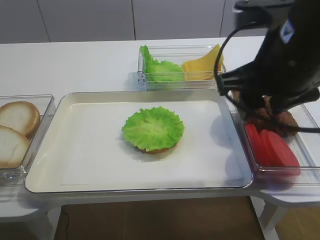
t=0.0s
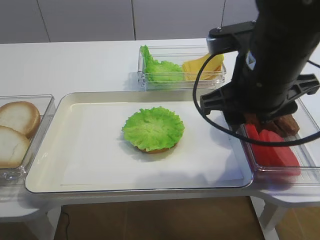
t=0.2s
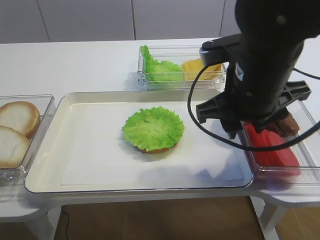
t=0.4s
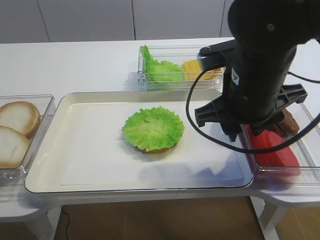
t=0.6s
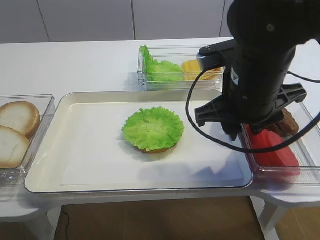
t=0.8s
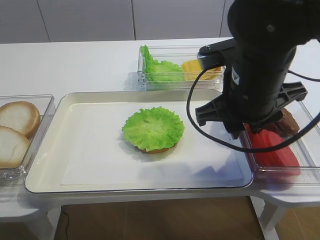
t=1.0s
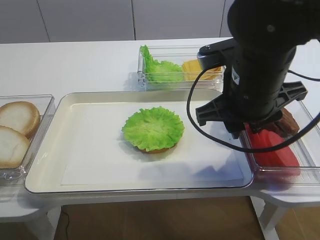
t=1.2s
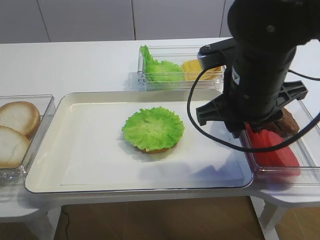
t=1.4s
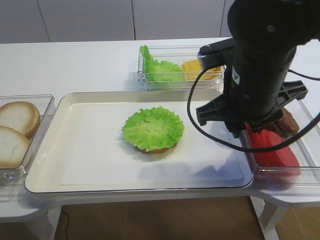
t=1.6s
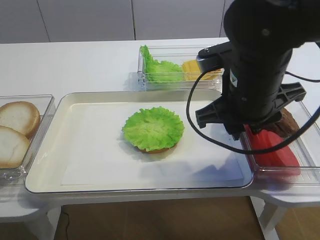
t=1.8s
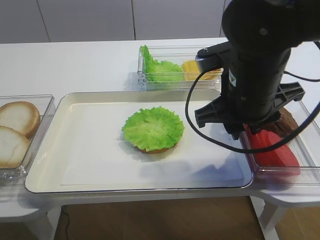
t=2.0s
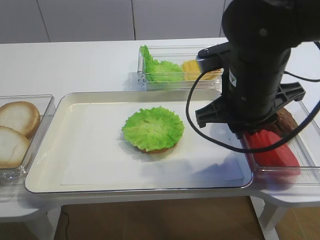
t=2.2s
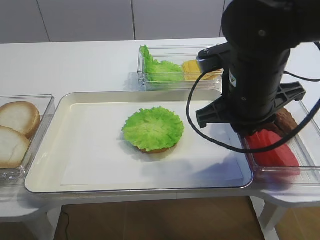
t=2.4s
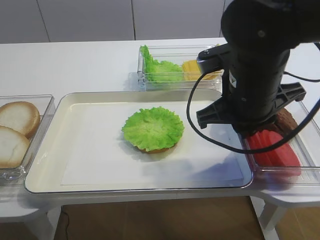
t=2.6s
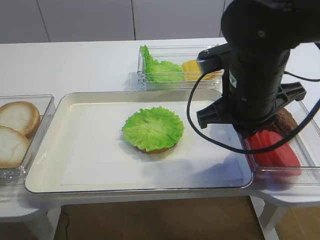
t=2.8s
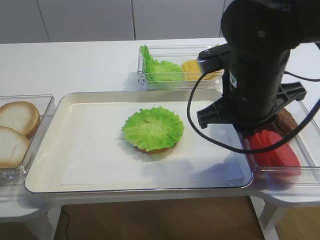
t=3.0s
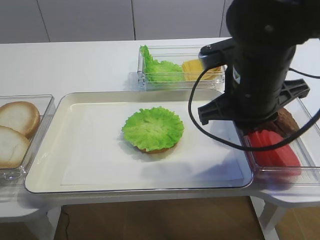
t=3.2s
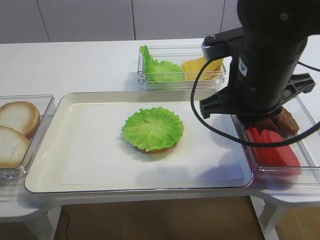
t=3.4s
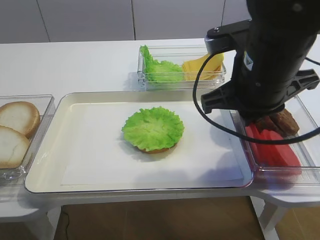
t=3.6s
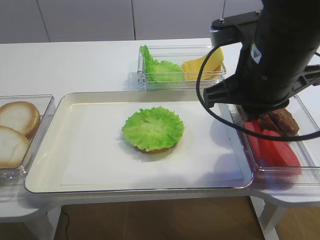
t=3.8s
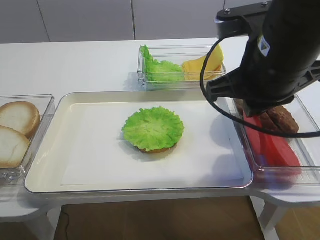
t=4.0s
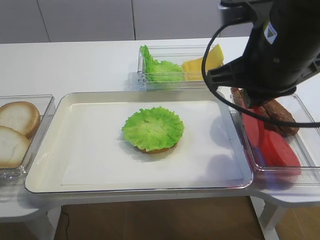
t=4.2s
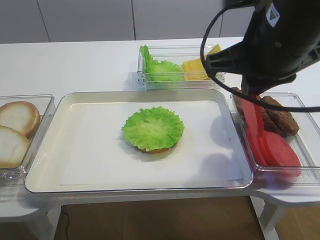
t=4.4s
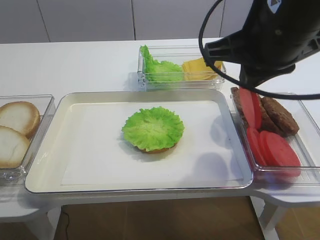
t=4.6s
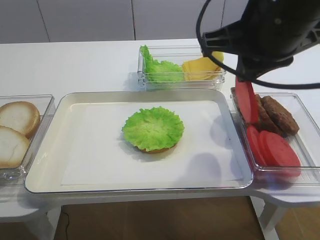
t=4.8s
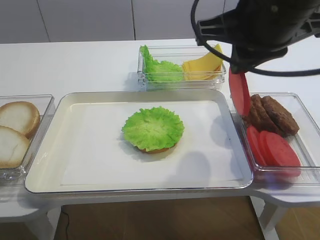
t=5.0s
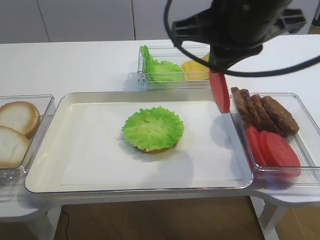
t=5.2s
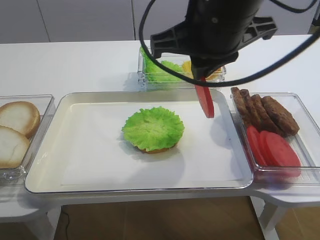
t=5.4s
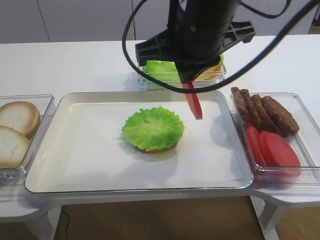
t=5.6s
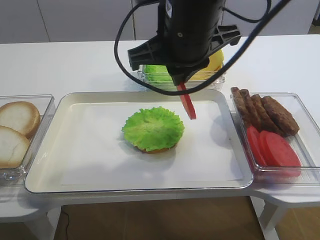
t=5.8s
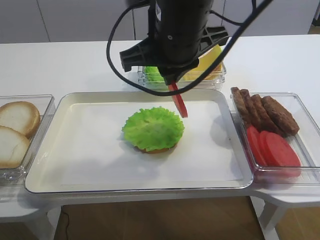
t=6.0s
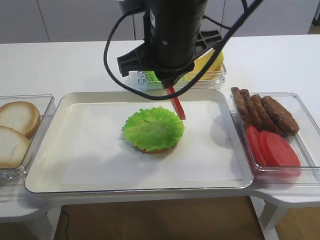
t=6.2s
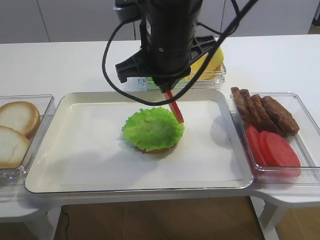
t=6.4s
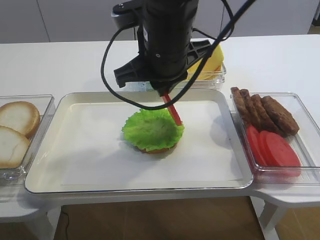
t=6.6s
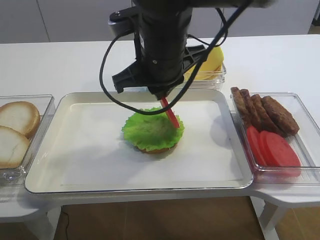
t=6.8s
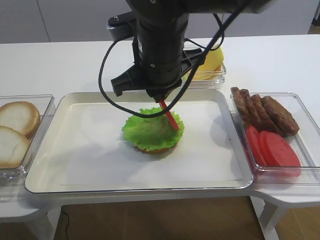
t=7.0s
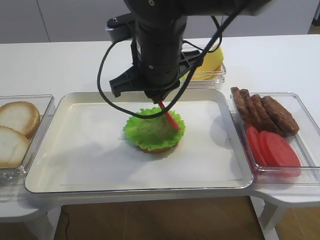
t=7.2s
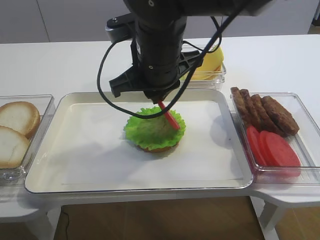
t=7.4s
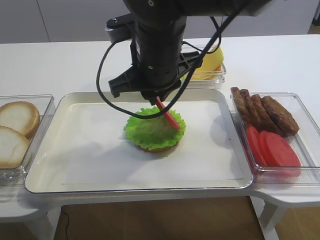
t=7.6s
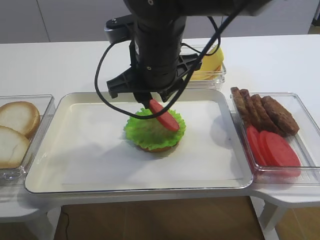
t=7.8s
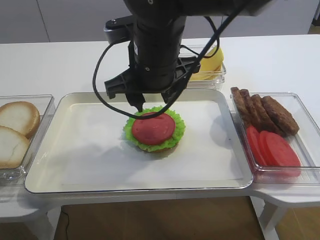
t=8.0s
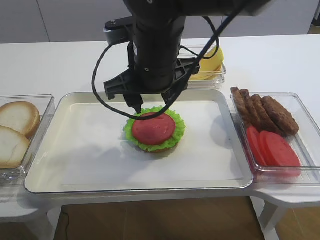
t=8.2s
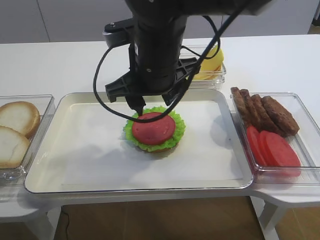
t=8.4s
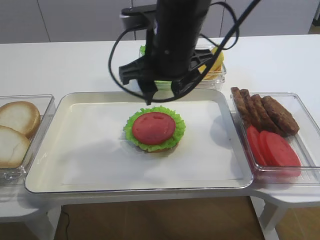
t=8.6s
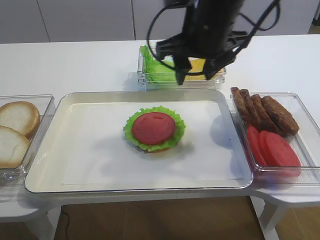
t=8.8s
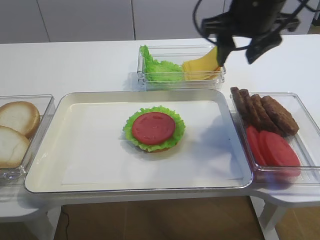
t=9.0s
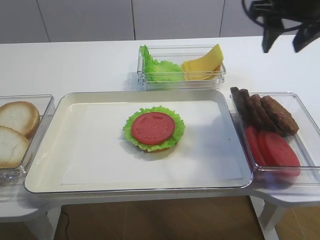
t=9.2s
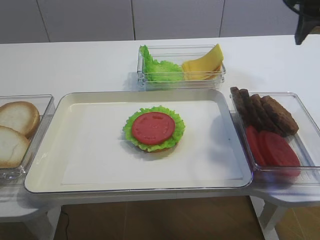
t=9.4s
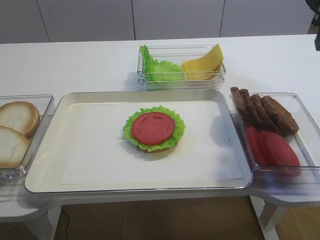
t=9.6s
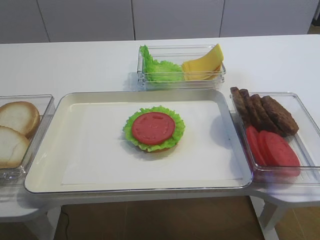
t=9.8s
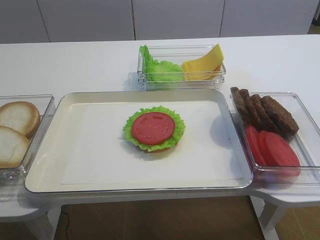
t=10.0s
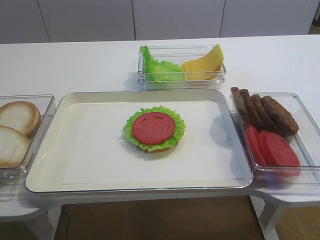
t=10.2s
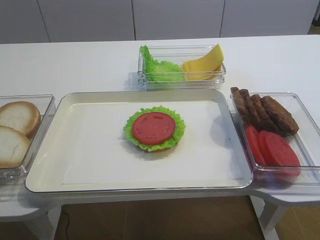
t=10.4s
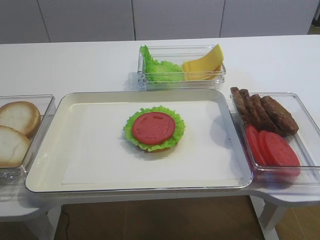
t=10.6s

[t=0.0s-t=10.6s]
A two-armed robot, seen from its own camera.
Step, t=0.0s to t=4.2s: Pick up the tomato slice with the right gripper.
Step, t=4.4s to t=8.2s: Place the tomato slice on the lettuce leaf with the right gripper.
t=0.0s to t=1.6s: The right gripper moves downward, some 5 cm.
t=1.6s to t=3.0s: The right gripper closes.
t=3.0s to t=4.6s: The right gripper moves upward, some 10 cm.
t=4.6s to t=6.0s: The right gripper heads to the left, covering some 10 cm.
t=6.0s to t=7.6s: The right gripper ends up about 5 cm from where it was.
t=7.6s to t=9.0s: The right gripper goes roughly 15 cm to the right, and opens its fingers.
t=9.0s to t=10.6s: The right gripper moves backward and to the right, about 35 cm.

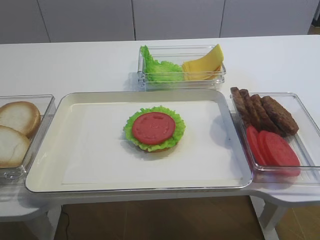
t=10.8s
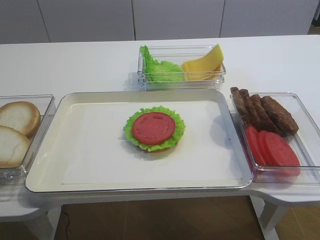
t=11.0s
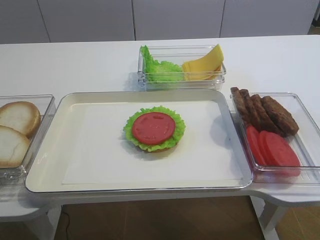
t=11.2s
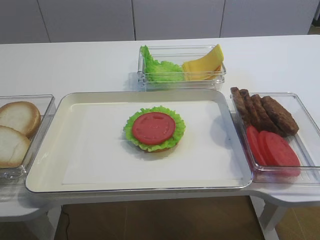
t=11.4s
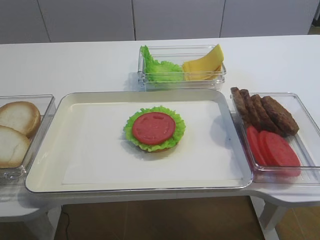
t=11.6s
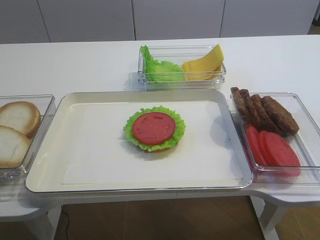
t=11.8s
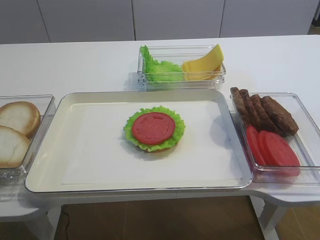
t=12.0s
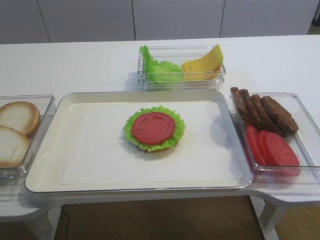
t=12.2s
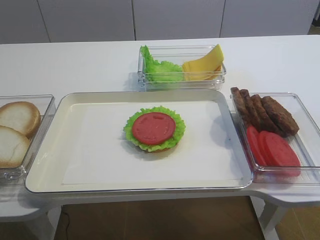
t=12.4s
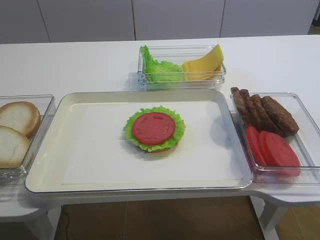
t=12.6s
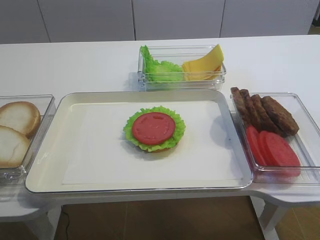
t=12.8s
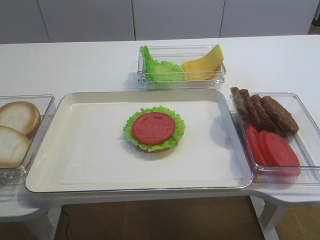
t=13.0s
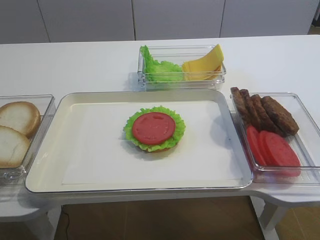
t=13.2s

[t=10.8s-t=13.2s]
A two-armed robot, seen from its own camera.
t=12.0s to t=13.2s: Both grippers stay put.

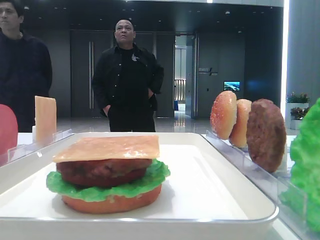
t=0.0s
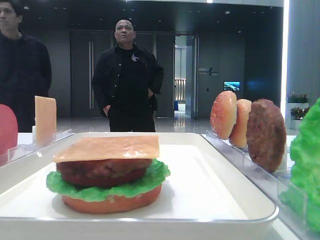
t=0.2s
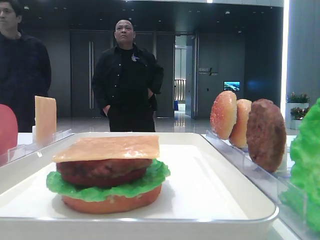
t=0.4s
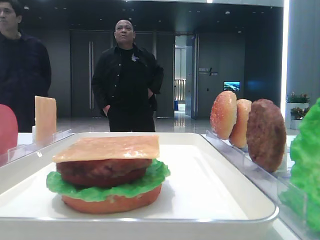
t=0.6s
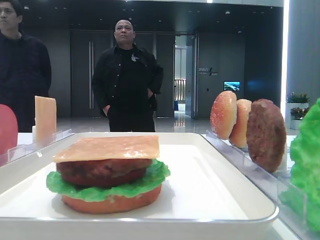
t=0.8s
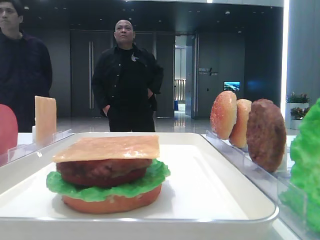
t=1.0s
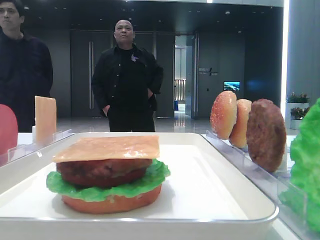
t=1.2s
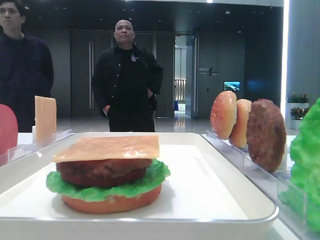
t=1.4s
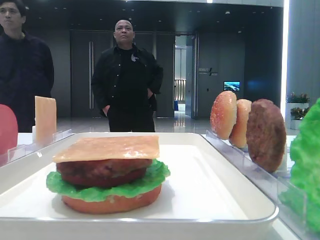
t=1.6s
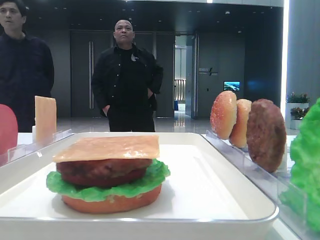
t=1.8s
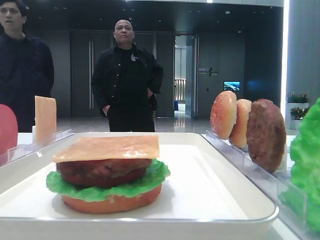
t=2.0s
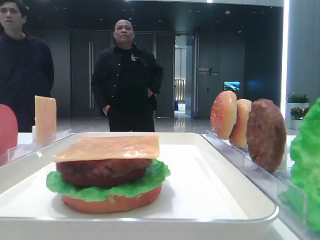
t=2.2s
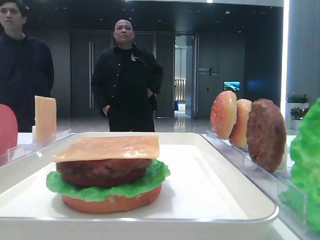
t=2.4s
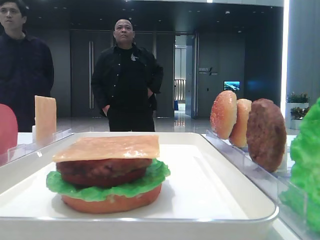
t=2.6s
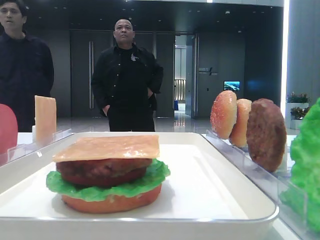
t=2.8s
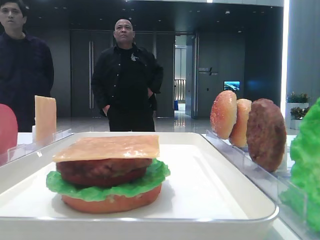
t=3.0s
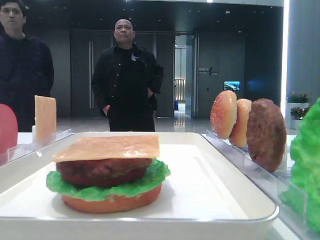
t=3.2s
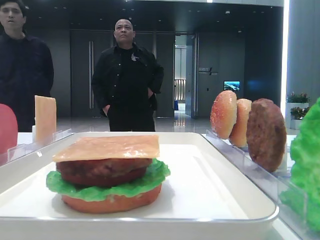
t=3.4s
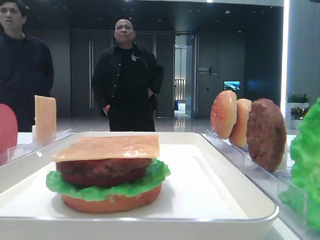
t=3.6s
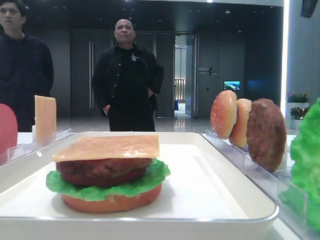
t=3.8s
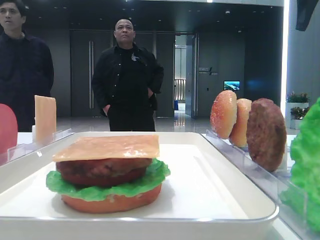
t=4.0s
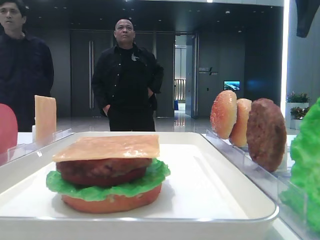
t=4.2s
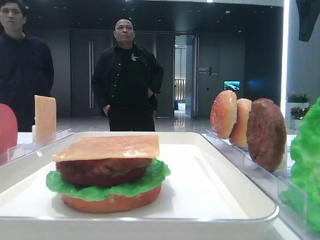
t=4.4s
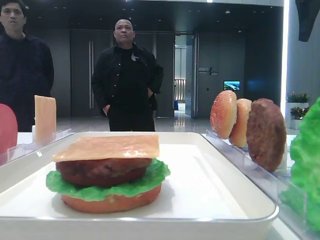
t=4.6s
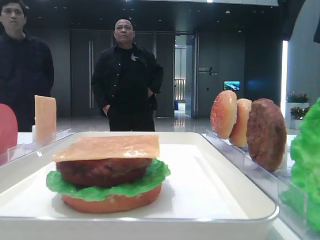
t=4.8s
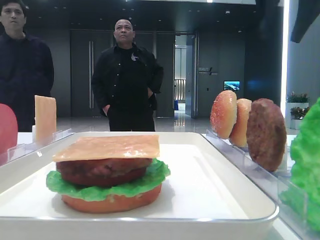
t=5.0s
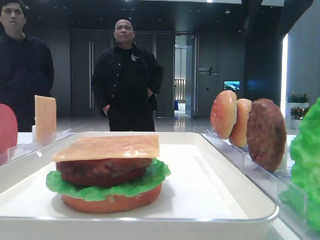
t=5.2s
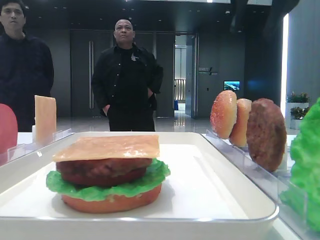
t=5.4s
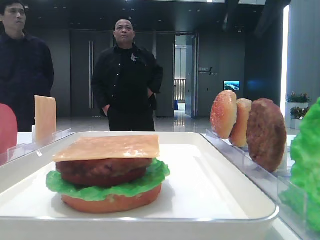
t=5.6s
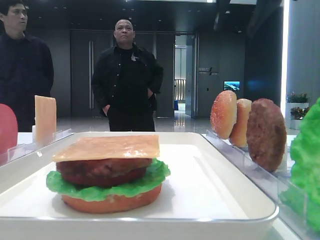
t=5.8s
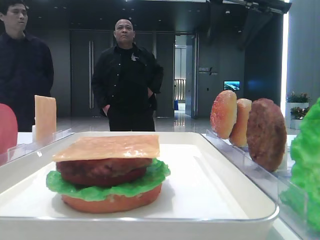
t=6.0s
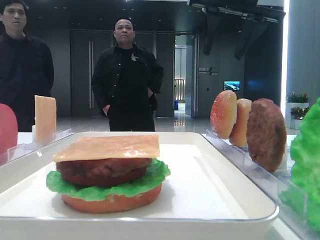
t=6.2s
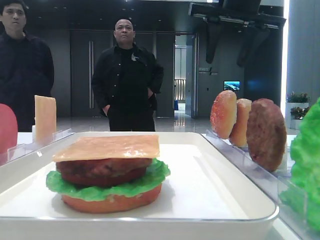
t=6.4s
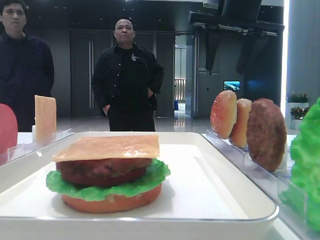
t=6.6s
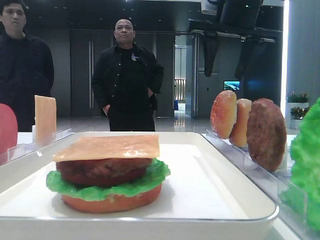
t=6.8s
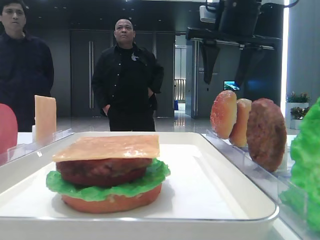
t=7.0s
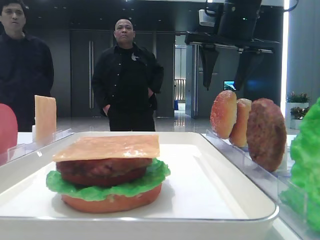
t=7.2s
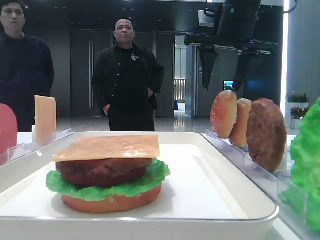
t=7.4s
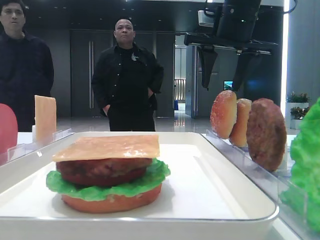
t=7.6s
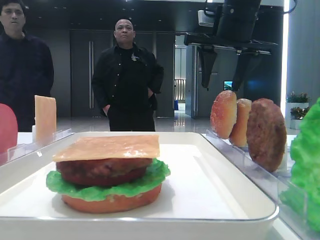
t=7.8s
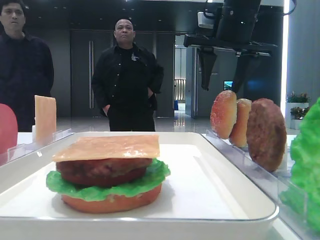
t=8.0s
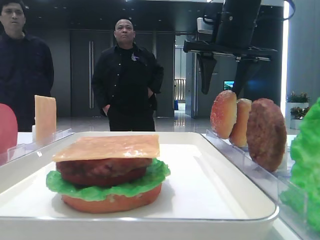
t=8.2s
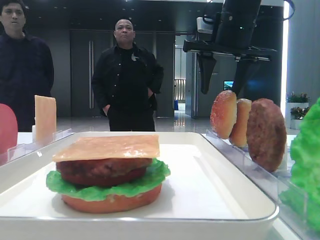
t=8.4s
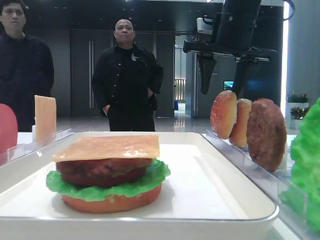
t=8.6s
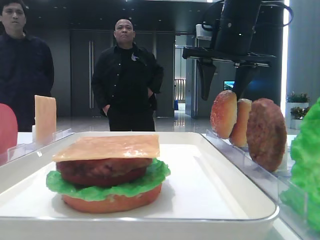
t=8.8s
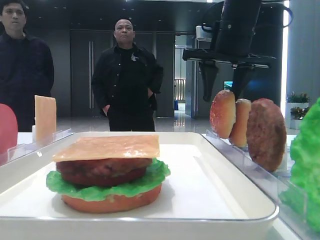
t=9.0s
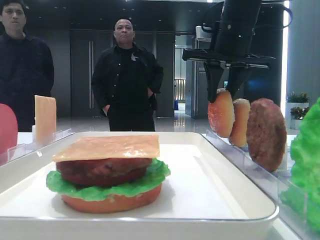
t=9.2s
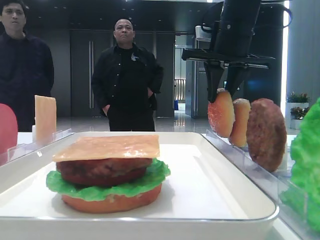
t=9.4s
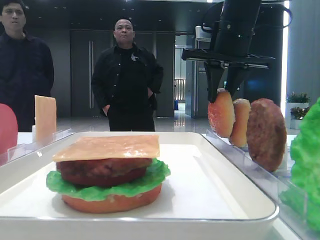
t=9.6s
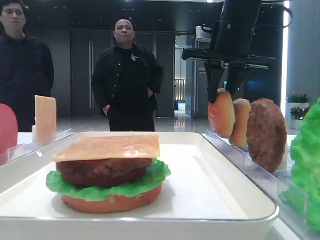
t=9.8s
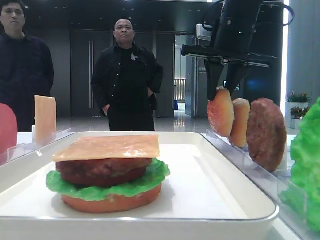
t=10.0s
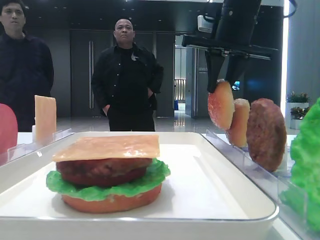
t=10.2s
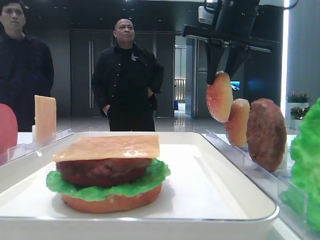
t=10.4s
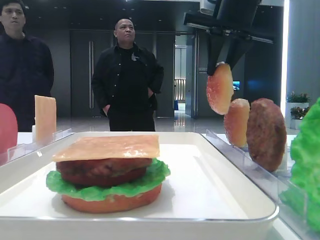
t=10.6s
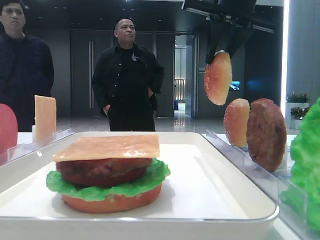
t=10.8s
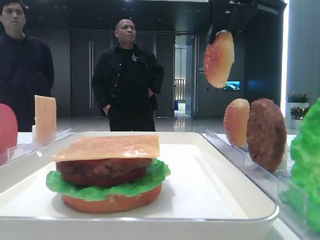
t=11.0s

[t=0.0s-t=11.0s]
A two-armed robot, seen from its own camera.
Step, t=0.0s to t=9.4s: Pick up the top bread slice with the right hand.
t=1.6s to t=3.2s: The right gripper moves forward, roughly 30 cm.
t=3.2s to t=4.8s: The right gripper goes some 10 cm forward.
t=4.8s to t=6.2s: The right gripper travels to the left by approximately 10 cm.
t=6.2s to t=7.8s: The right gripper moves downward, roughly 5 cm.
t=7.8s to t=9.4s: The right gripper closes its fingers.
t=9.4s to t=11.0s: The right gripper moves upward, about 10 cm.
